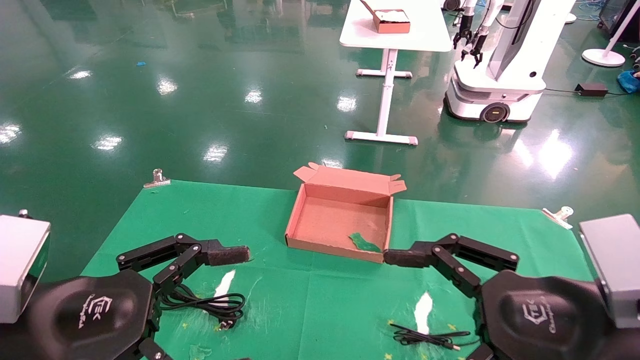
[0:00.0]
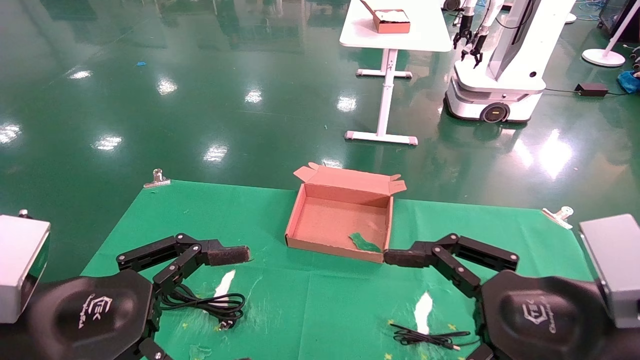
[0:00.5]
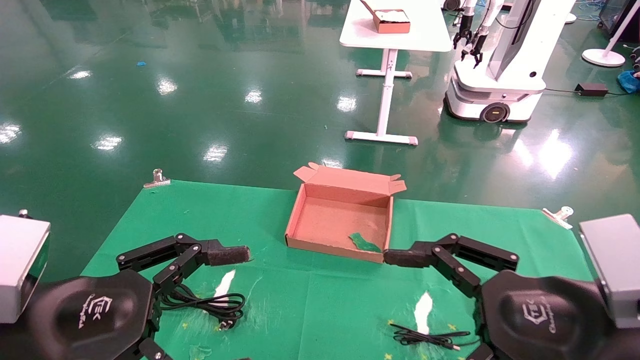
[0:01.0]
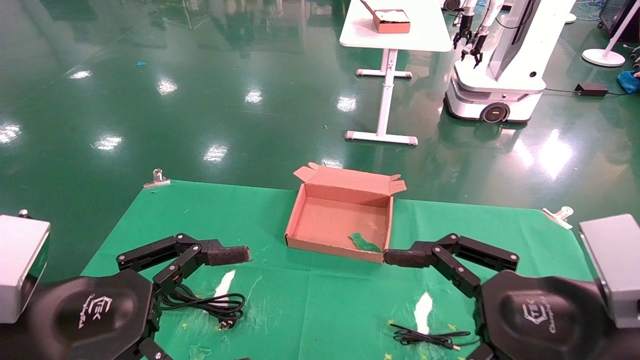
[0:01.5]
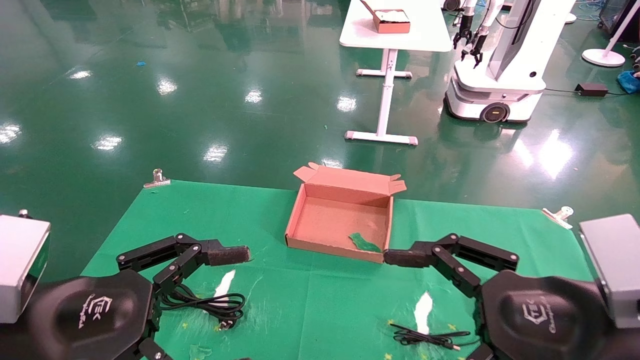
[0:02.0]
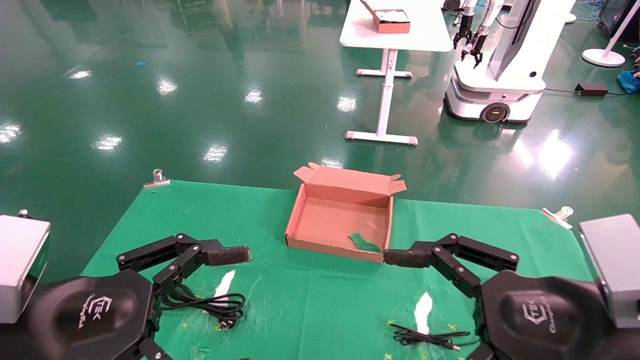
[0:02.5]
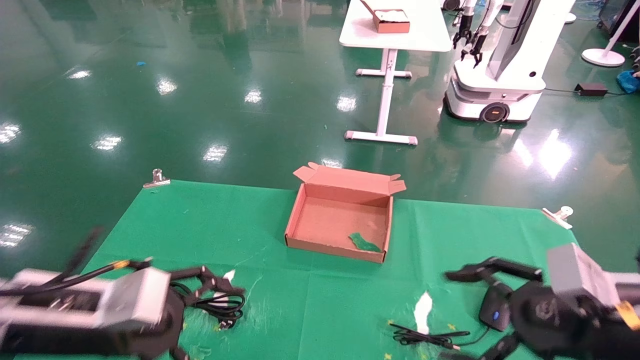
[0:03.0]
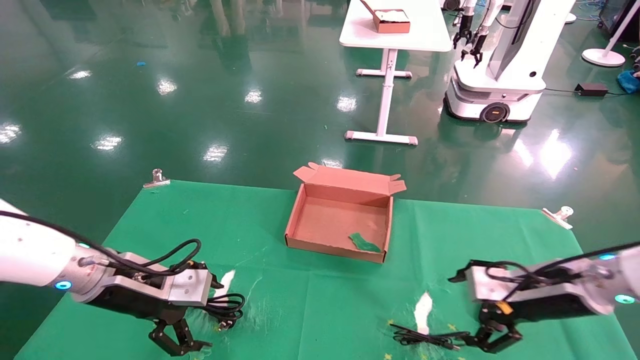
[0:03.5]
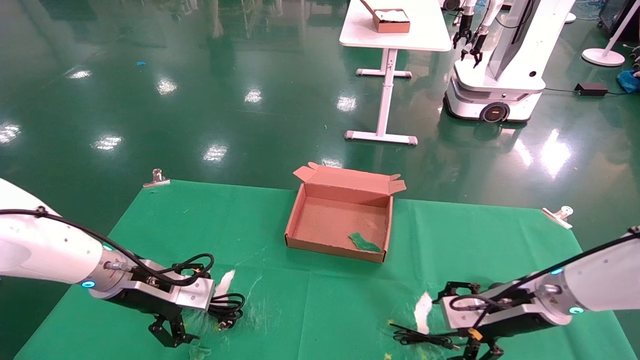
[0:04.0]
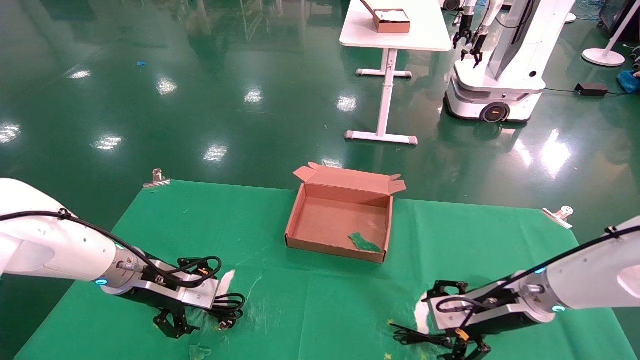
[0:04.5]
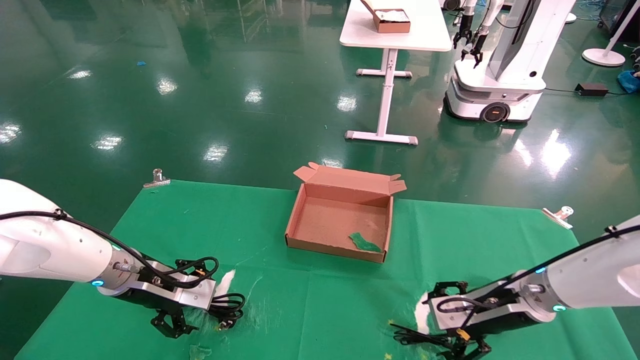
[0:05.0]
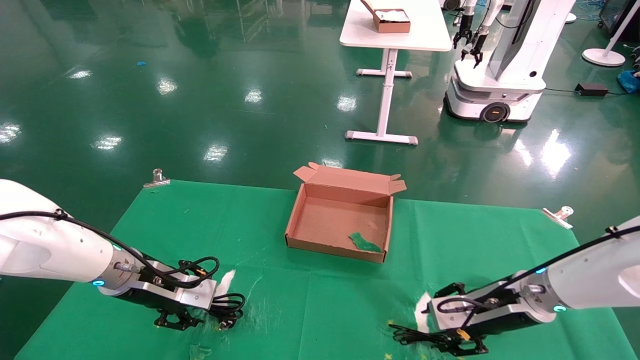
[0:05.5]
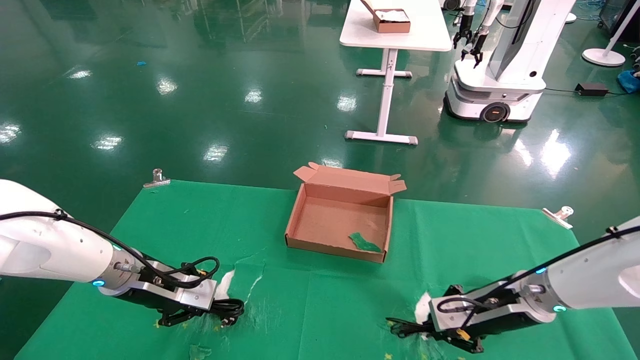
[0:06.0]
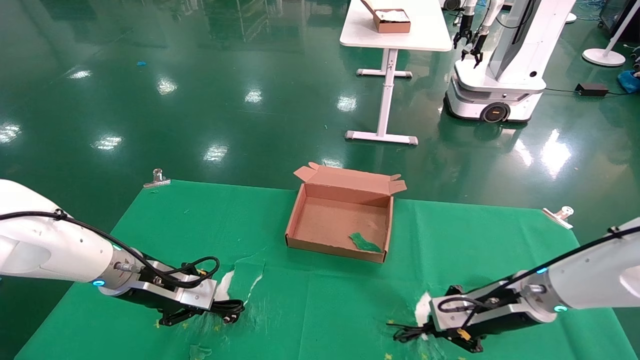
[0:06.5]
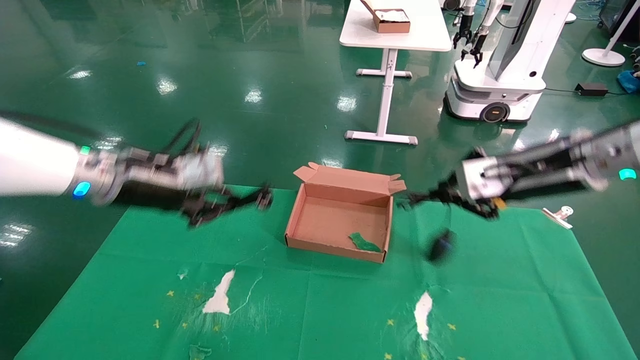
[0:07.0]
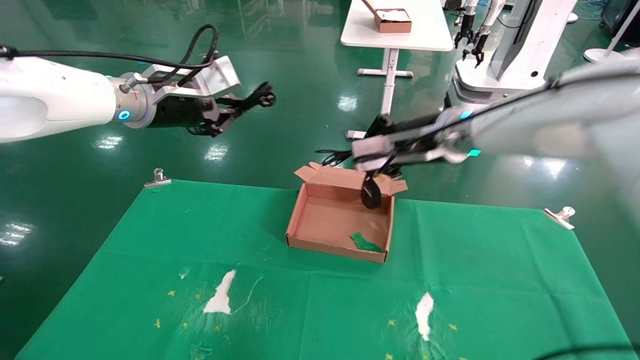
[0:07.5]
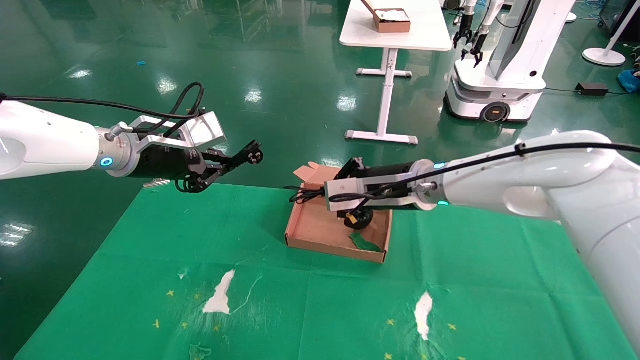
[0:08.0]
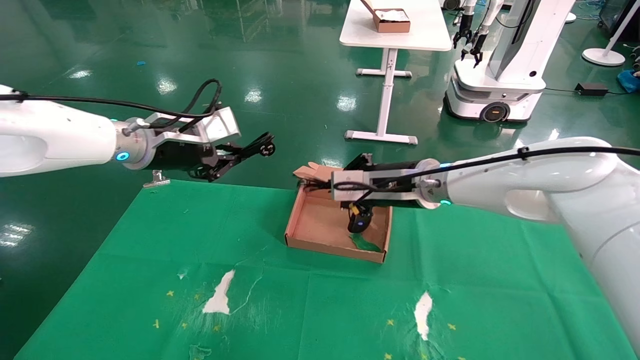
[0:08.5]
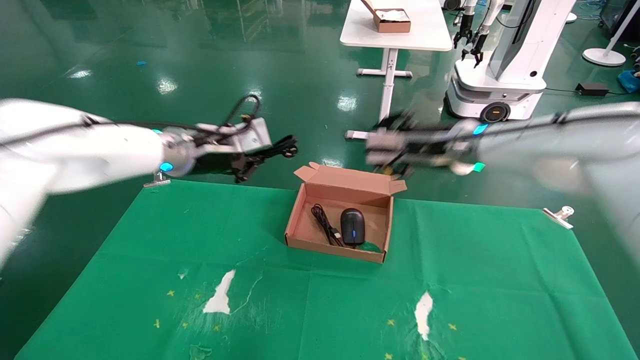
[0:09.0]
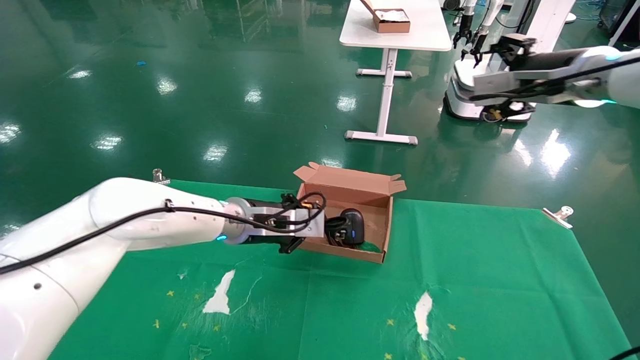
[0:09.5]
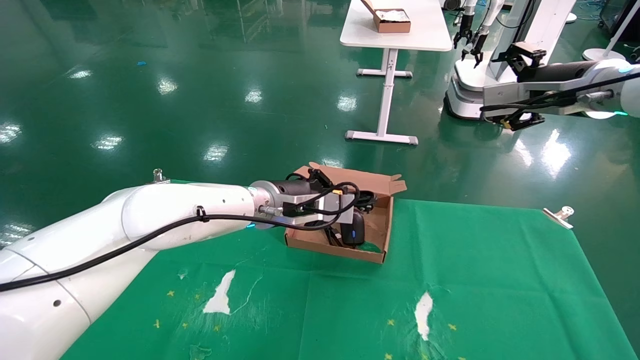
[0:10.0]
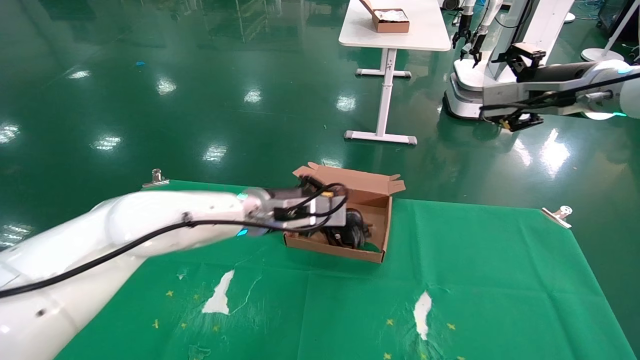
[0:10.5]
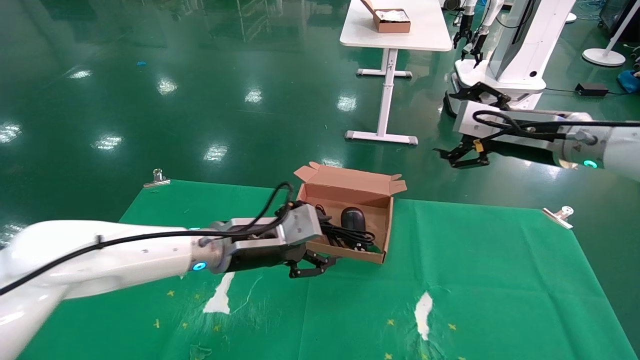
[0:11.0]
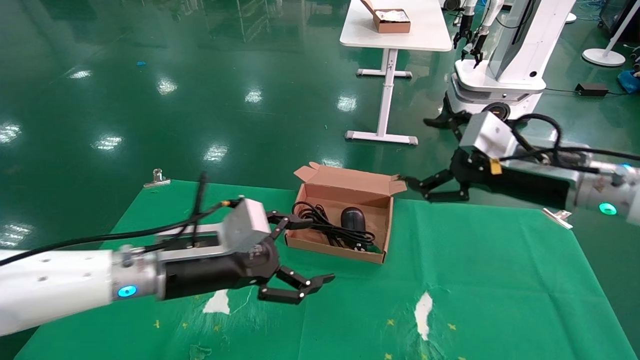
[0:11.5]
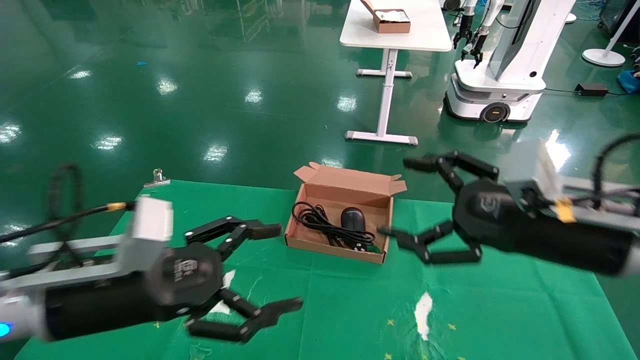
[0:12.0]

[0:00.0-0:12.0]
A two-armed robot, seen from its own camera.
Step, 0:03.0 to 0:06.0: Grab and lift both the mouse and power cord from the accessory packaging area at the same time.
Step, 0:06.5 to 0:10.5: Place the mouse and power cord into the box.
0:00.0 to 0:02.0: The two grippers keep their place.
0:02.0 to 0:04.0: The left gripper heads forward, covering some 25 cm; the right gripper moves forward and downward, some 25 cm.
0:04.0 to 0:06.0: The right gripper closes up, while the left gripper closes its fingers.
0:06.0 to 0:08.0: The right gripper travels upward and to the left by some 20 cm. Meanwhile the left gripper goes some 20 cm upward.
0:08.0 to 0:10.0: The right gripper is displaced to the right and upward by some 25 cm, and opens its fingers. Meanwhile the left gripper goes some 20 cm to the right and downward.
0:10.0 to 0:12.0: The left gripper is displaced backward and to the left by about 25 cm, and opens up. Meanwhile the right gripper shifts roughly 20 cm backward, downward and to the left.

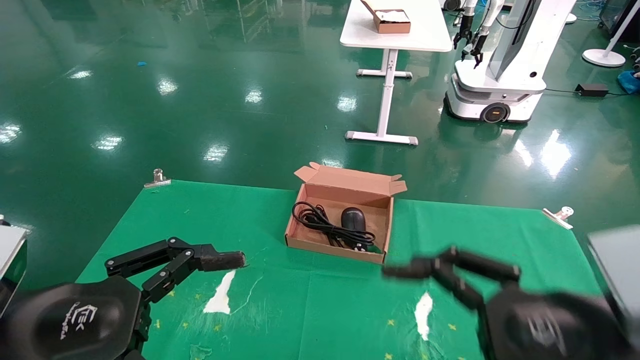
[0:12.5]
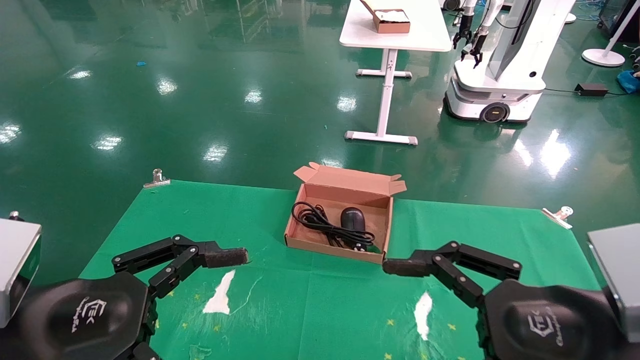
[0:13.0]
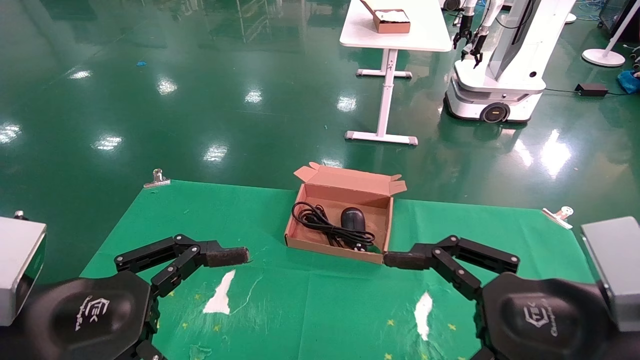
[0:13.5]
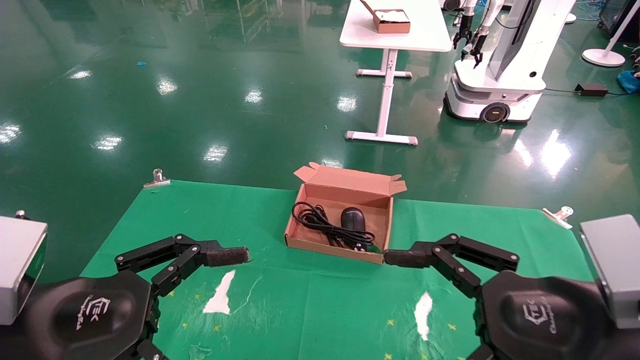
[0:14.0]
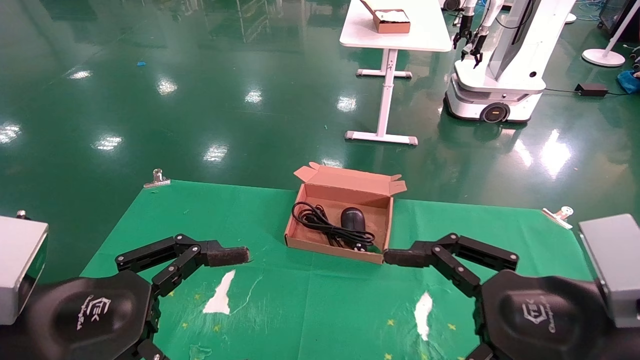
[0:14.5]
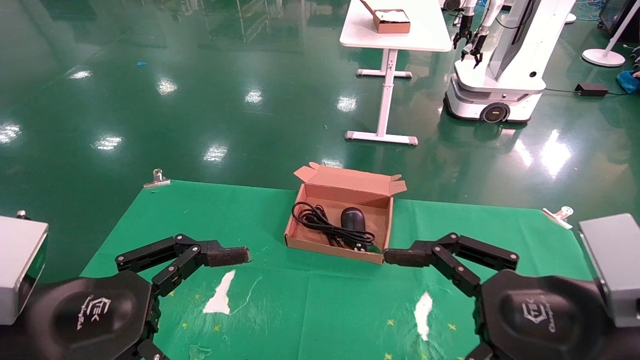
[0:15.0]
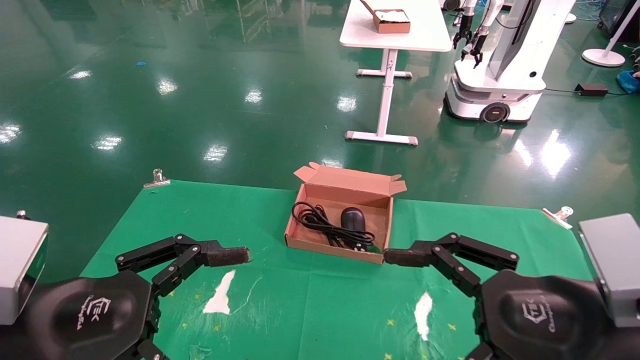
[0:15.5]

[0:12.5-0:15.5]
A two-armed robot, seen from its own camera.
0:12.5 to 0:15.5: Both grippers stay put.
